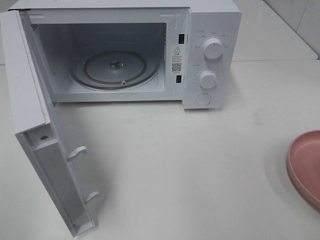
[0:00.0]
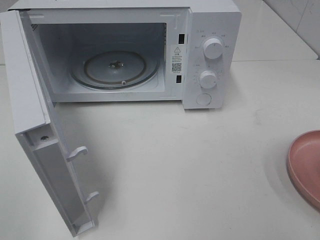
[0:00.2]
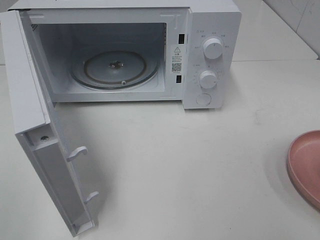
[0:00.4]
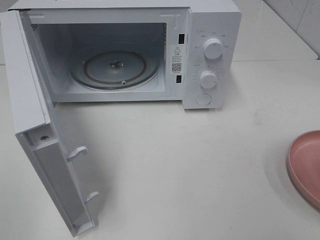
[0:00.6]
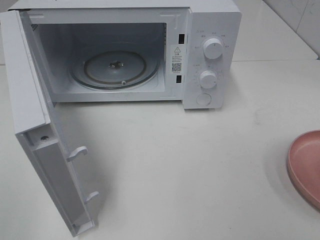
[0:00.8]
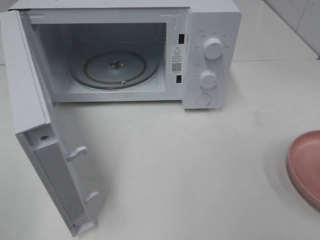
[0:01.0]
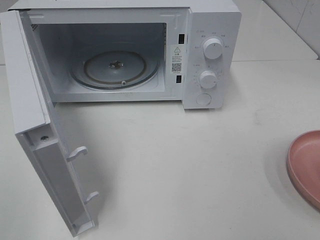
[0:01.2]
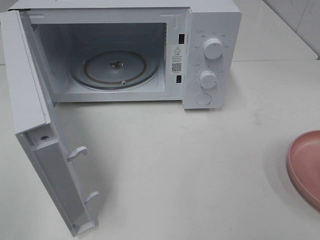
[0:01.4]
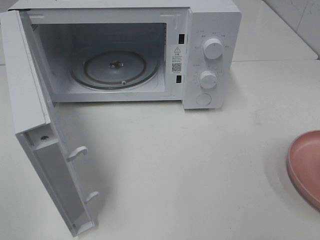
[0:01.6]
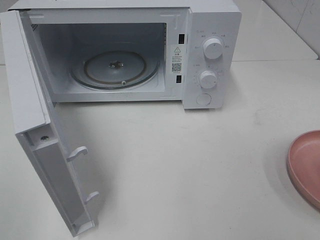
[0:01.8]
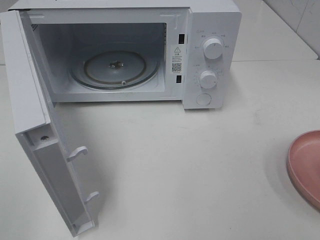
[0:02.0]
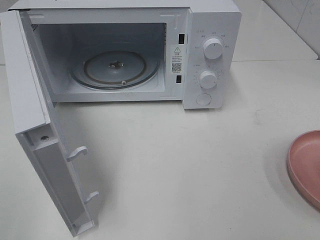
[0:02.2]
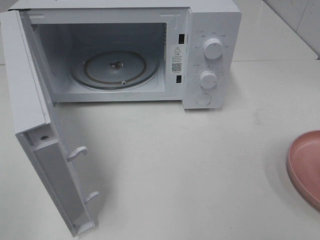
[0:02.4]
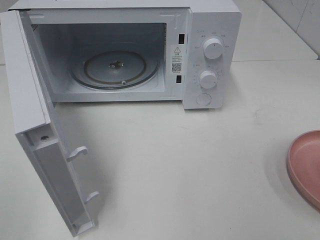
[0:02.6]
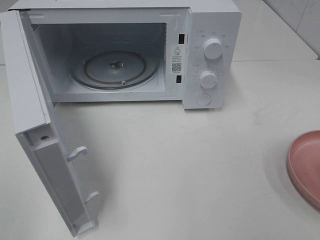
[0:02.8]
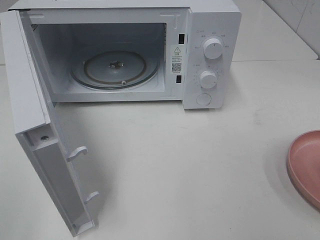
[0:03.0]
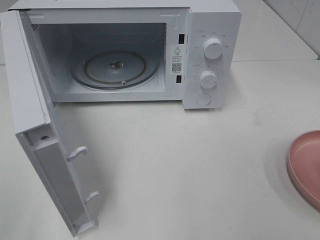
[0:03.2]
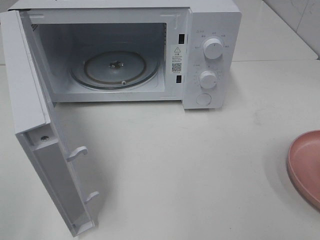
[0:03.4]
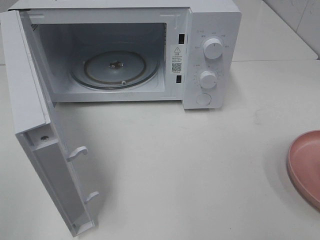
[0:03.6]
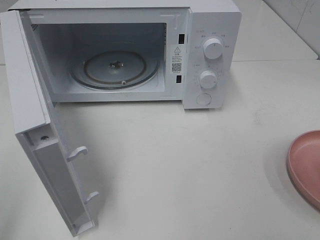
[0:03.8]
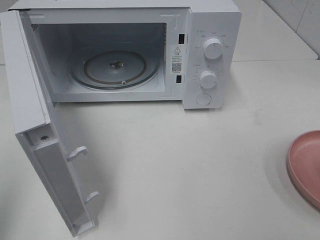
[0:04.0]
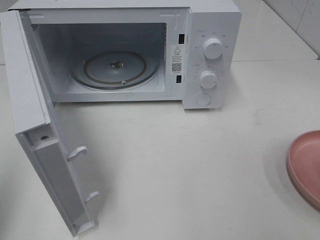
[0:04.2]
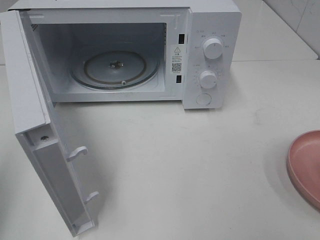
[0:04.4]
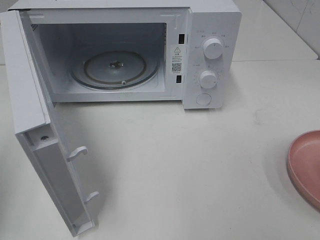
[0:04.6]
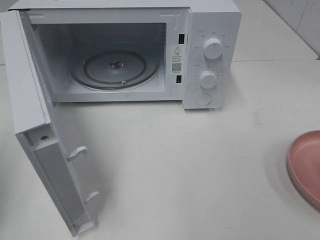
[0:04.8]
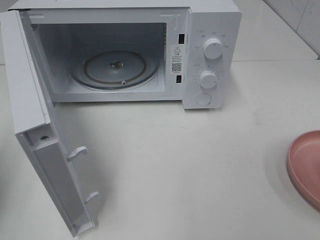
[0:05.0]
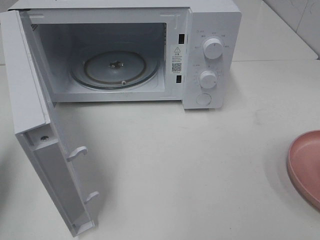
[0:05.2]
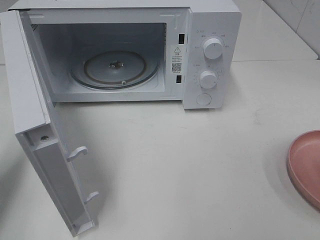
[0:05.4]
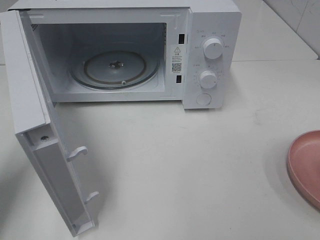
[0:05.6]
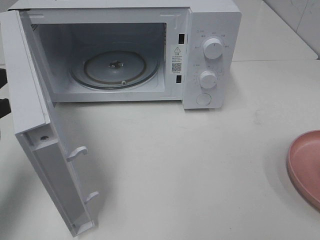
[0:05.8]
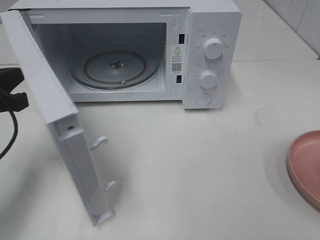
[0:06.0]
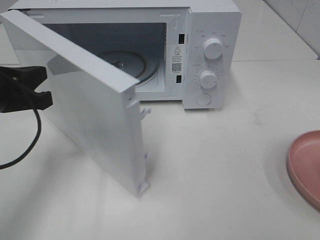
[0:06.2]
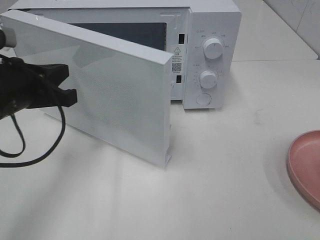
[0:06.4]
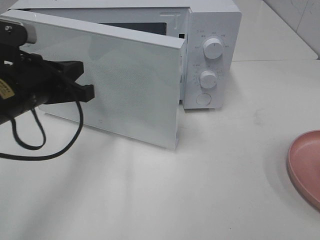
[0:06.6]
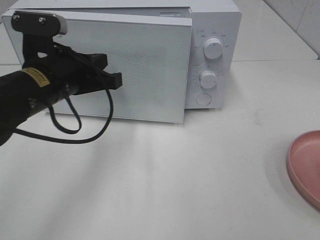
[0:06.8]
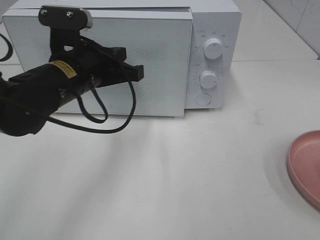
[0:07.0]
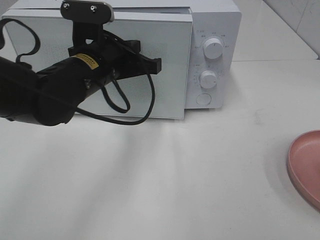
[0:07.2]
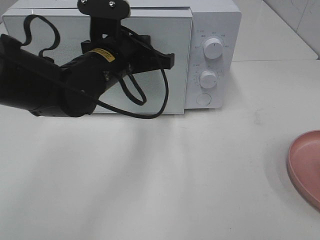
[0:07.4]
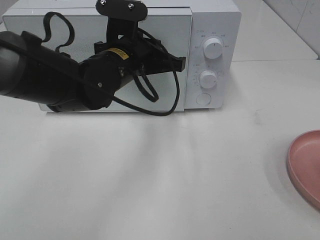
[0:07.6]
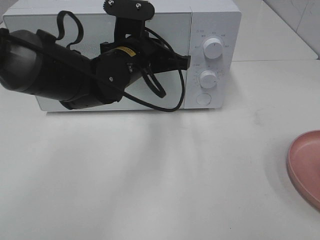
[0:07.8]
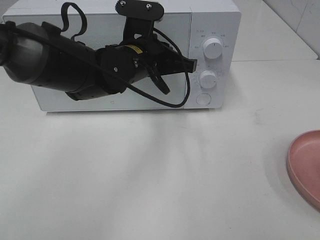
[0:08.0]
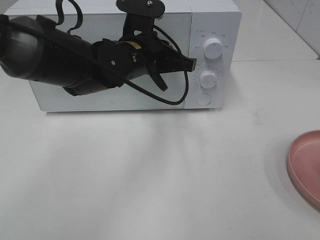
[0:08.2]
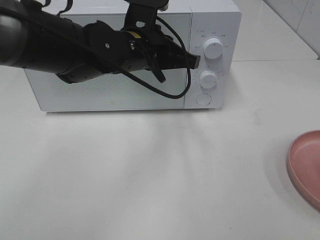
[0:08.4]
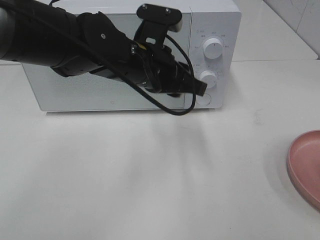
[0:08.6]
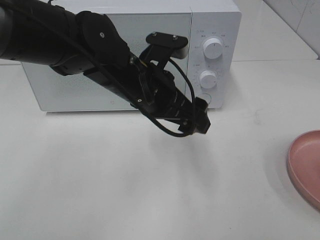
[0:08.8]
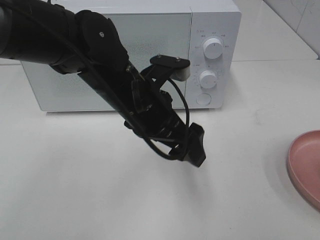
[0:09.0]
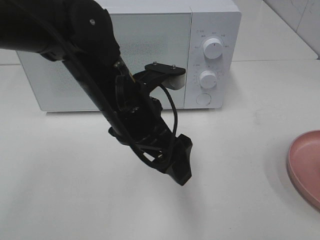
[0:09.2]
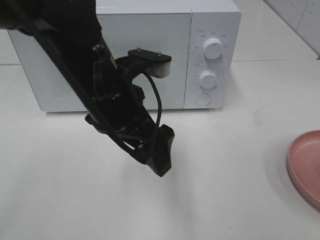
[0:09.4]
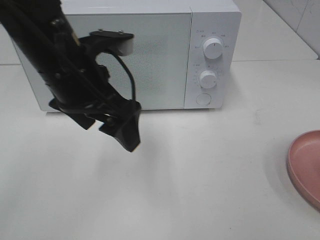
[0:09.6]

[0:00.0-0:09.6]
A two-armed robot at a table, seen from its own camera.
Task of the whole recording: Heat the burger.
Step, 0:00.0 to 0:08.4: Left hand: close the microwave door.
0:01.6 to 0:03.2: Both grippers stay put.
0:04.8 to 0:06.4: The left gripper shifts roughly 15 cm to the right and forward.
0:06.4 to 0:08.0: The left gripper moves to the right and forward, roughly 20 cm.
0:08.0 to 0:09.6: The left gripper moves backward, to the left and upward, about 15 cm, and opens up.

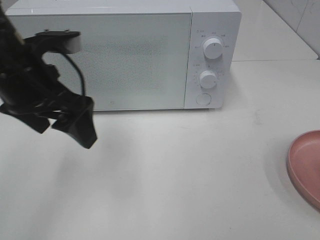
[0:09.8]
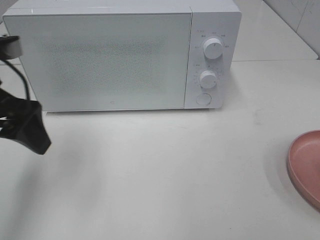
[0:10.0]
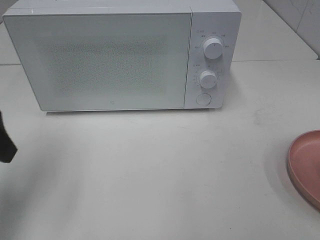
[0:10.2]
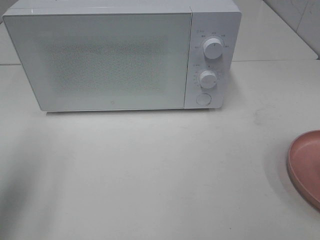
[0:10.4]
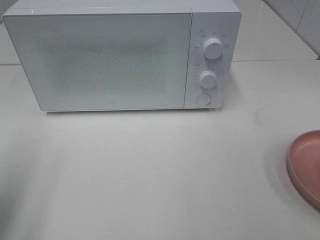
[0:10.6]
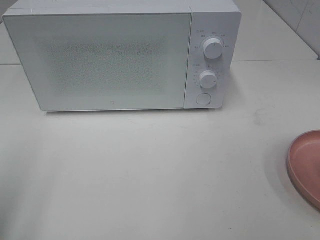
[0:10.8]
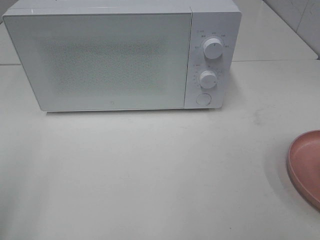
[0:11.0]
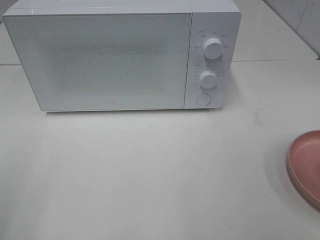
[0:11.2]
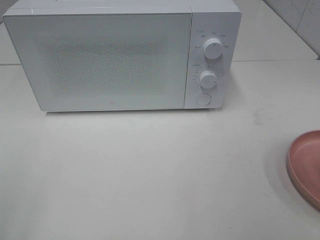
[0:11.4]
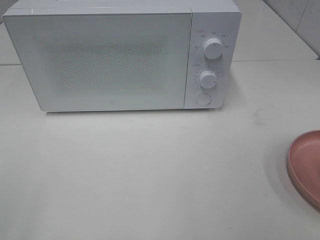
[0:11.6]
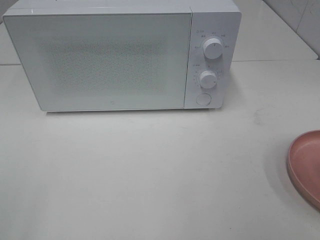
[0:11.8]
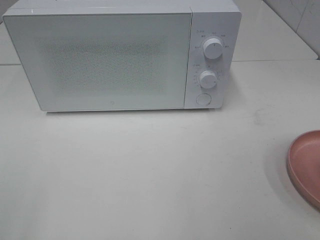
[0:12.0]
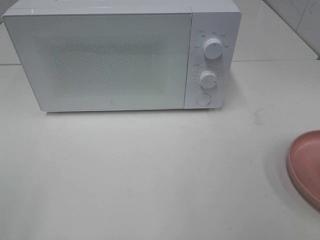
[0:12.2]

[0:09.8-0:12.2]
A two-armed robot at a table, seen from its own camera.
Task of the whole recording: Heat the burger.
0:09.8 to 0:11.0: The left gripper goes about 25 cm backward and to the left.

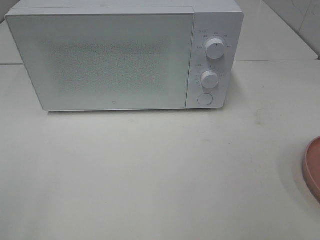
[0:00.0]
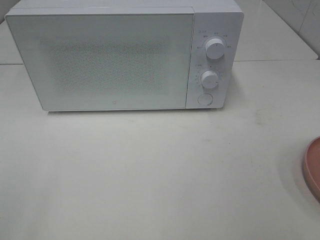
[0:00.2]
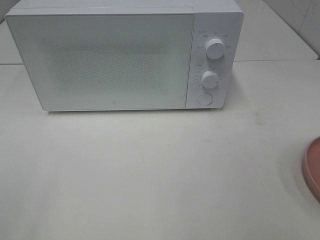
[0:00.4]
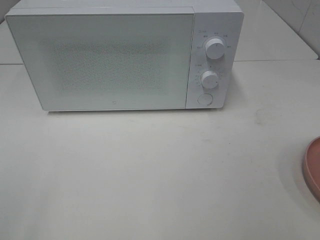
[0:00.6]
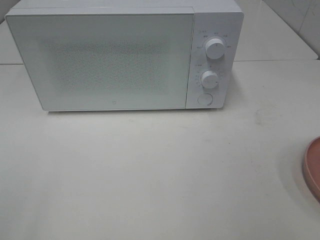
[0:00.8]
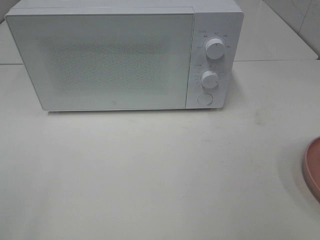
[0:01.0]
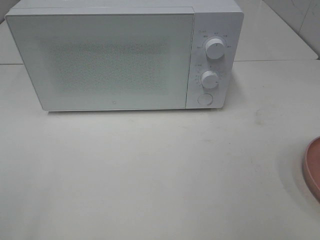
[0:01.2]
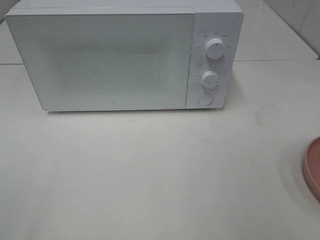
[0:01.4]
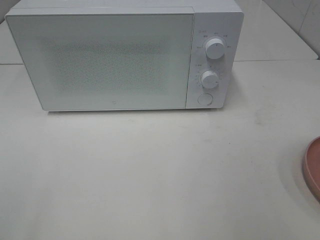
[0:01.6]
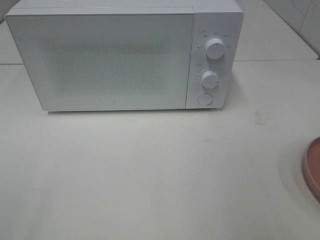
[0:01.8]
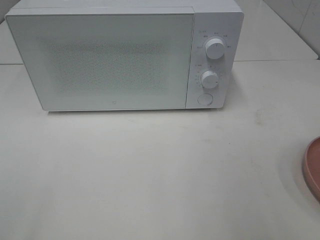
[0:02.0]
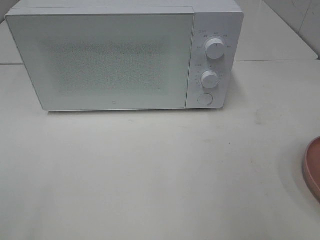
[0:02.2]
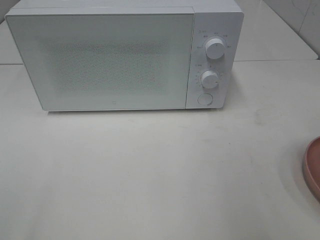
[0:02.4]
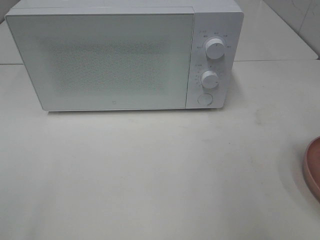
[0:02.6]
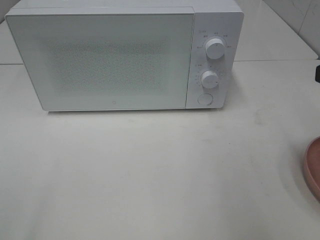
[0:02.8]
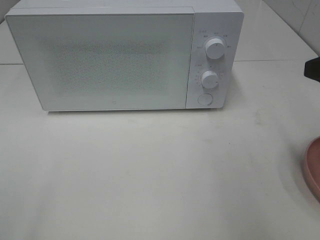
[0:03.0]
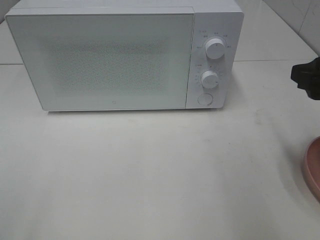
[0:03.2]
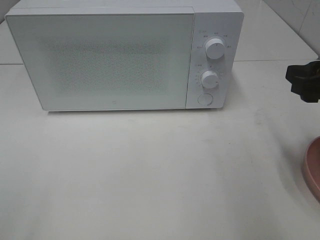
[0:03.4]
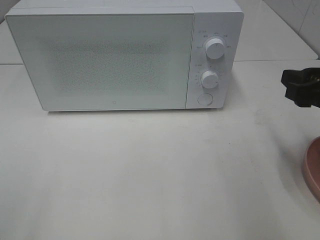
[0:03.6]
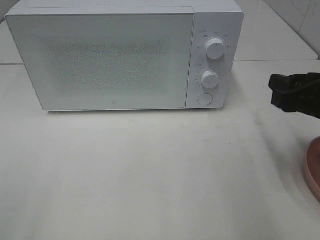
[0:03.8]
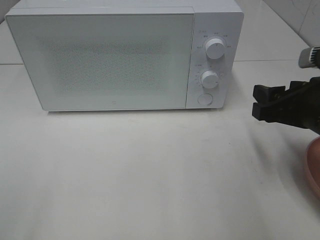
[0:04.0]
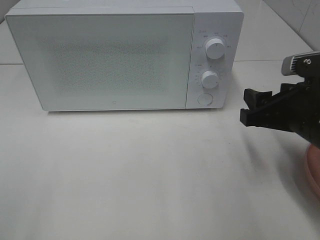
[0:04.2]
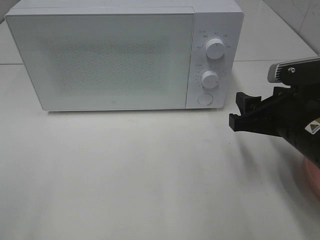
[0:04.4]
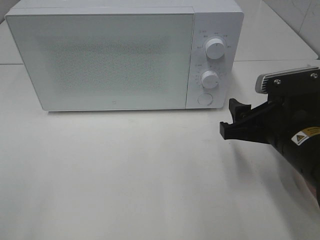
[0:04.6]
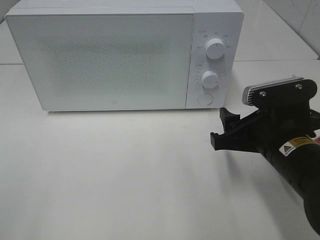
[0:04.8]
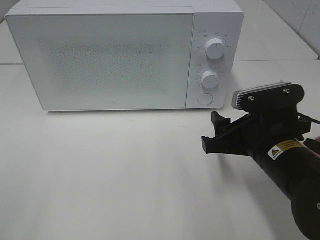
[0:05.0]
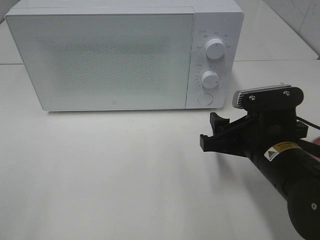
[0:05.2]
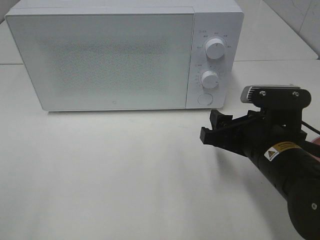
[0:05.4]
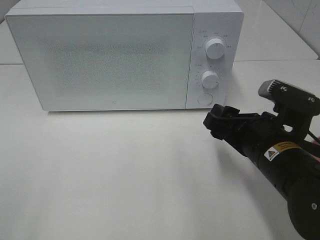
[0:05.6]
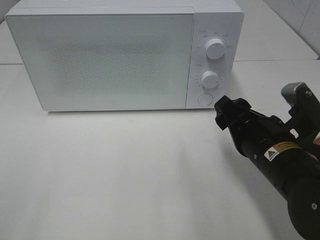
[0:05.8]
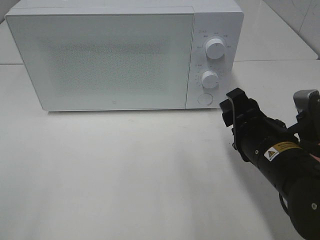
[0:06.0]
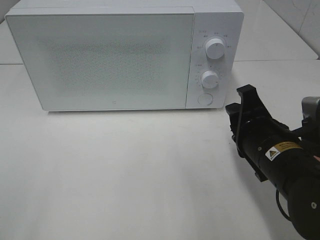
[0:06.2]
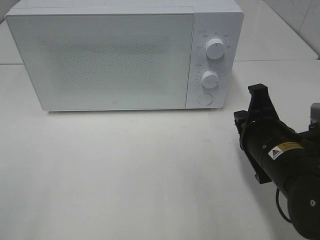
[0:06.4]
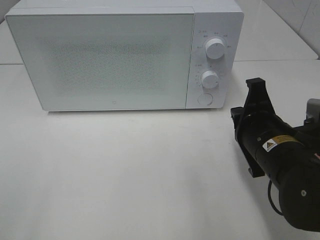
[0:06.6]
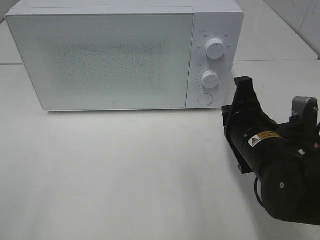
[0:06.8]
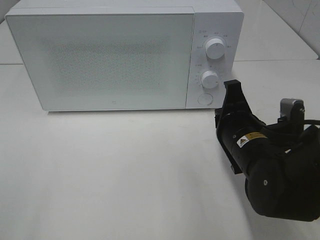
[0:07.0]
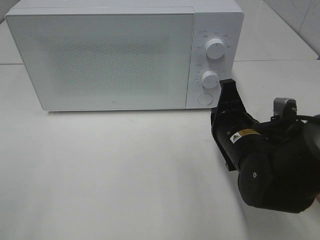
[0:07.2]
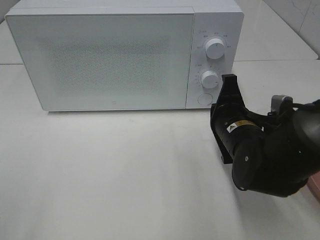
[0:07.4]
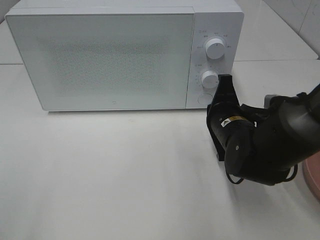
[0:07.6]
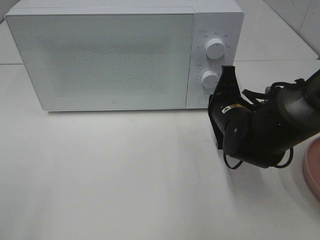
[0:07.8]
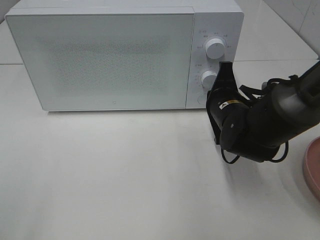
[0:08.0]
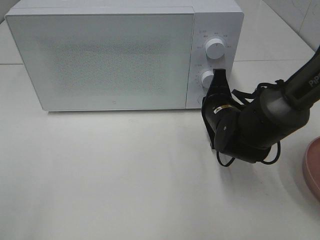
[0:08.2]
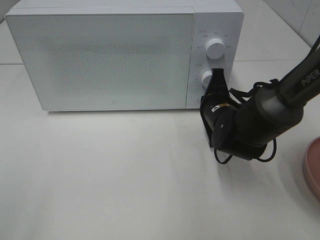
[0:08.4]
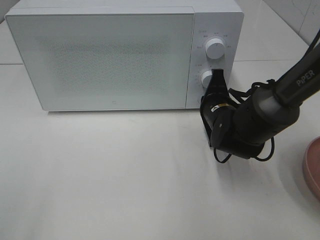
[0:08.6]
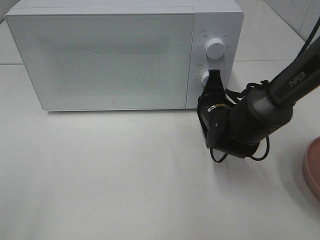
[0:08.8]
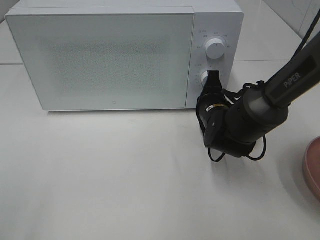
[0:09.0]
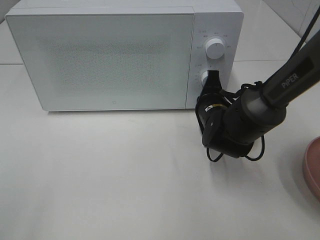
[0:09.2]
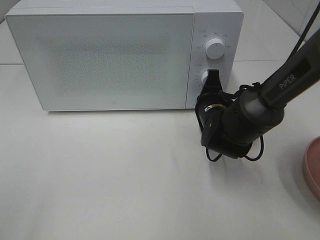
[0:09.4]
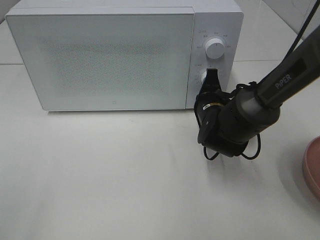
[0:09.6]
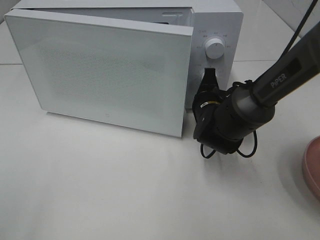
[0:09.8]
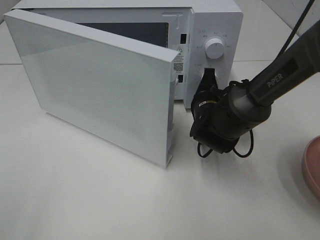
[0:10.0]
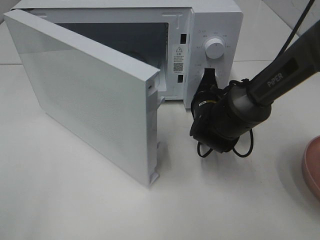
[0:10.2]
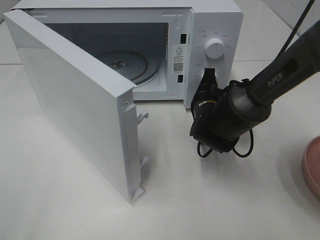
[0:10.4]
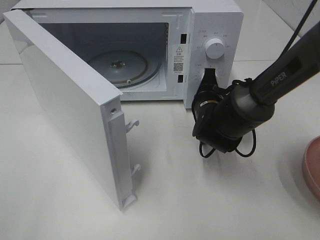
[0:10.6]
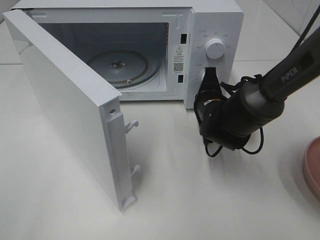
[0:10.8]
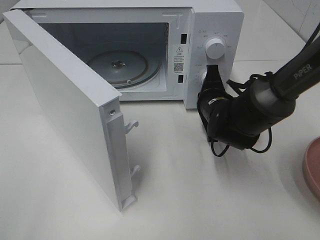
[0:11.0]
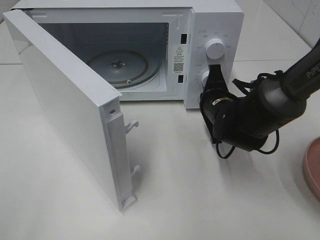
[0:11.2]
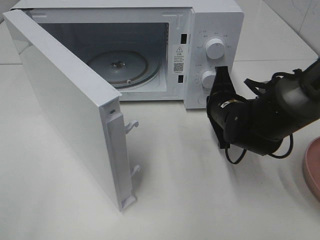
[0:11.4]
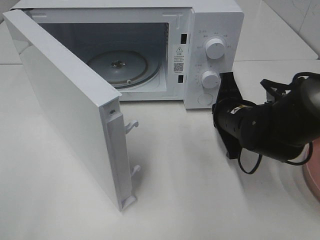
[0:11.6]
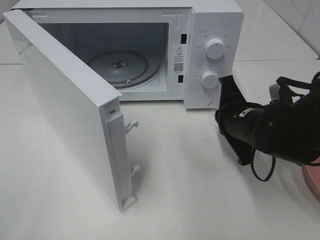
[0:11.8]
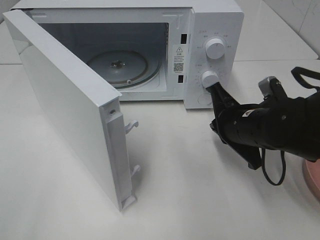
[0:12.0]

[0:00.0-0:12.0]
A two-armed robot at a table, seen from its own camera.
Task of the whole recording: Heat the burger.
Step, 0:00.0 to 0:11.2: Right hand: press the switch.
0:03.0 to 0:04.4: The right gripper heads downward and to the left, covering approximately 15 cm.
0:04.4 to 0:06.0: The right gripper ends up some 5 cm from where it was.
0:06.0 to 0:07.6: The right gripper heads forward, covering some 10 cm, and closes.
0:07.6 to 0:09.0: The right gripper is displaced forward by roughly 5 cm.
0:10.4 to 0:12.0: The right gripper shifts about 10 cm backward and upward.
